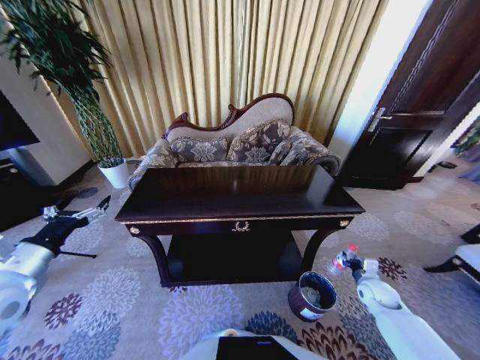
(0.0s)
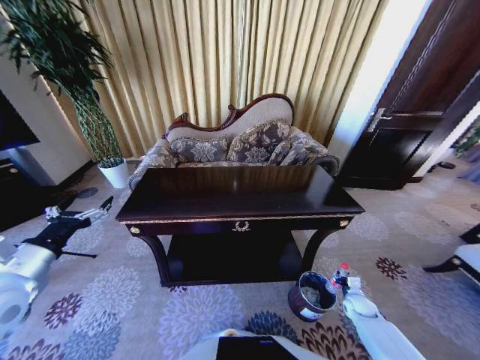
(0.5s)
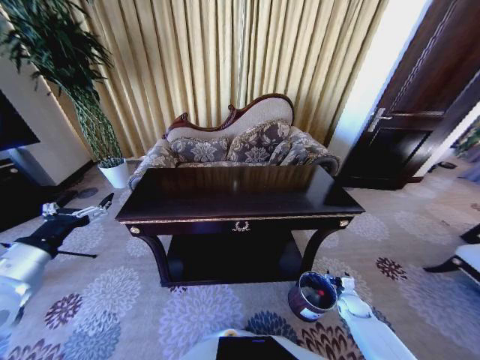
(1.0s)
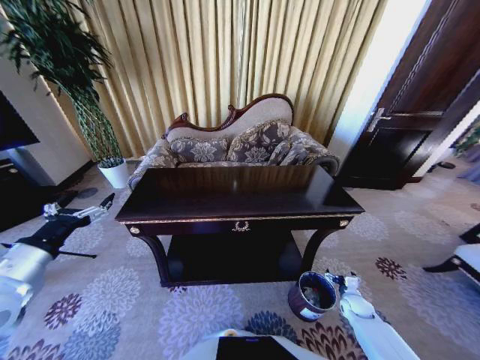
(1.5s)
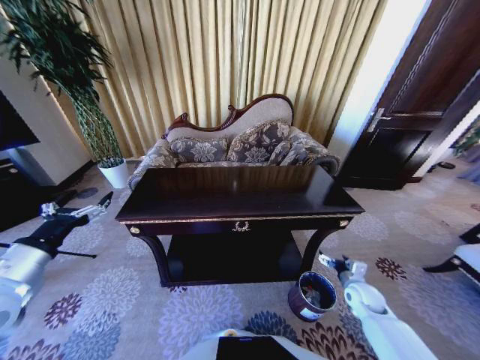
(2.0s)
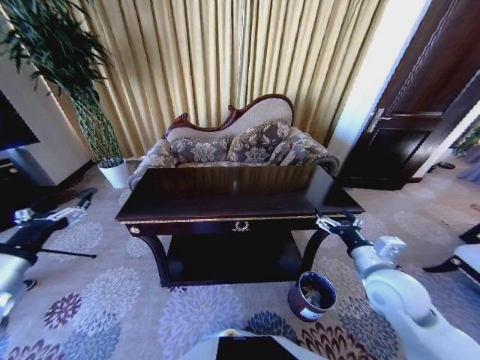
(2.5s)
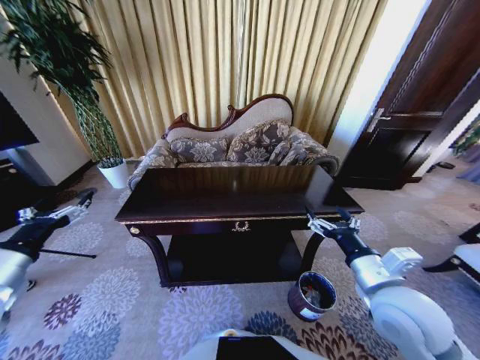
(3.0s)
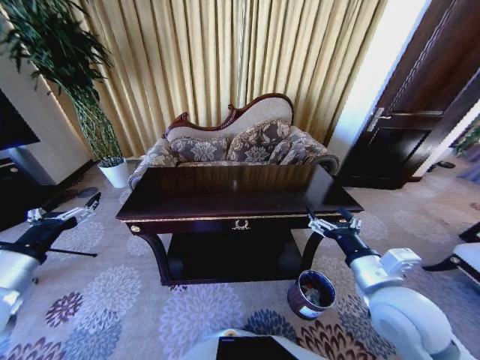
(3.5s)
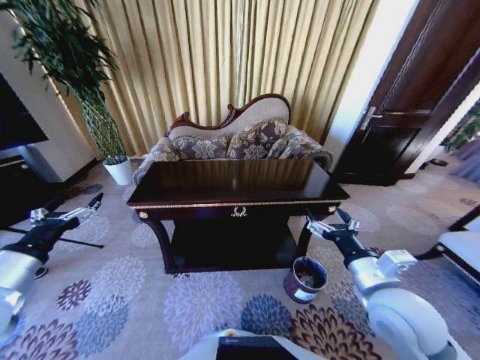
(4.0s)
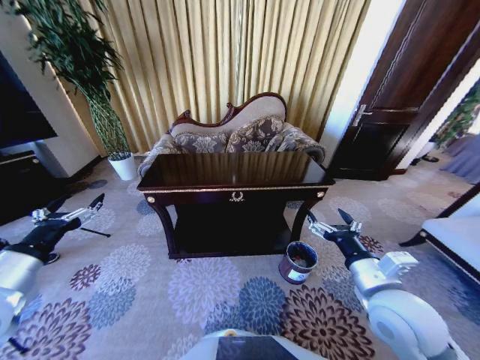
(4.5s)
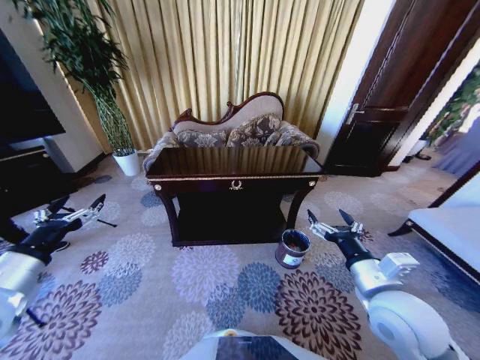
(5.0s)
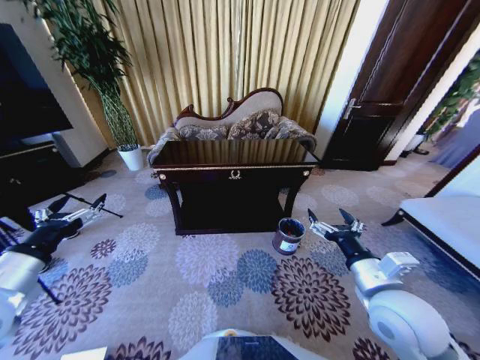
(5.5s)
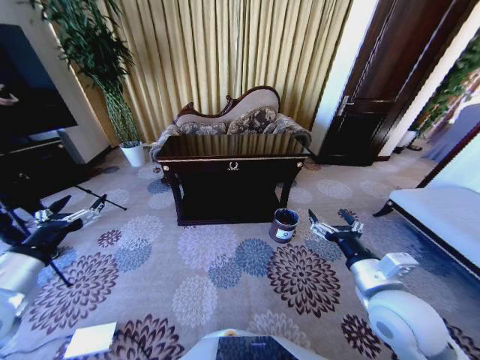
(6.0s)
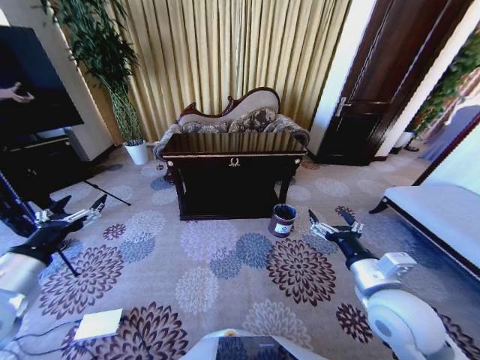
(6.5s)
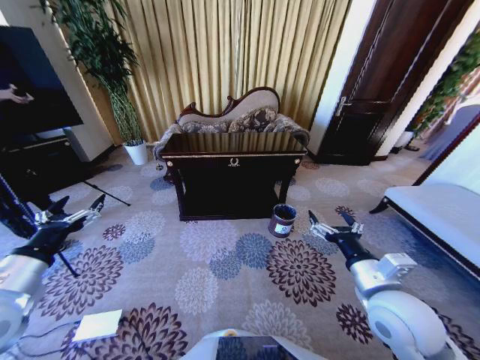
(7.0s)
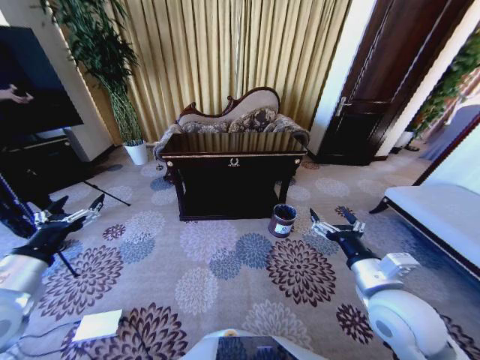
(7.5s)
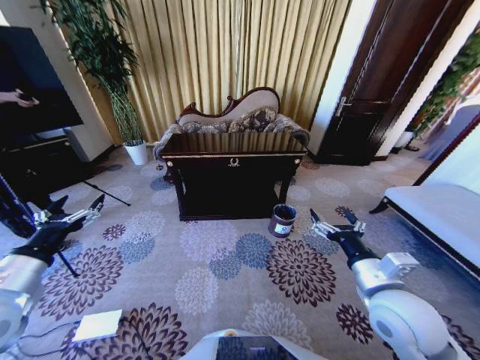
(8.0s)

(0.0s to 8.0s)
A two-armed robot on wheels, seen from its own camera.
Task of the whole recording: Move to the front of the table and place the trash on the table into the trash bin.
0.0s - 2.0s: The right gripper reaches about 10 cm downward, then returns, and opens up.
2.0s - 4.0s: The right gripper moves upward and to the left, about 30 cm.

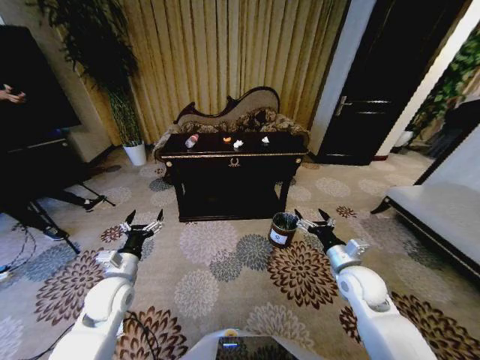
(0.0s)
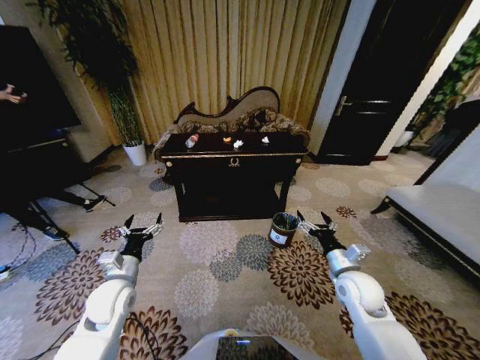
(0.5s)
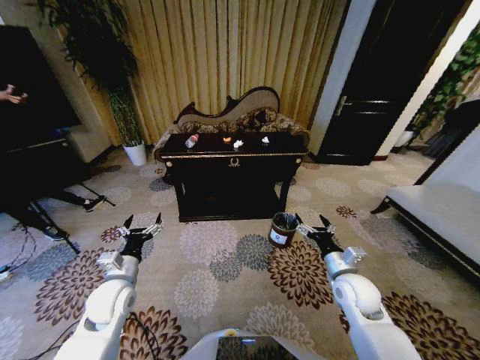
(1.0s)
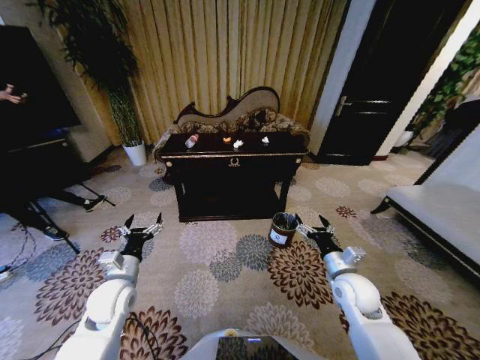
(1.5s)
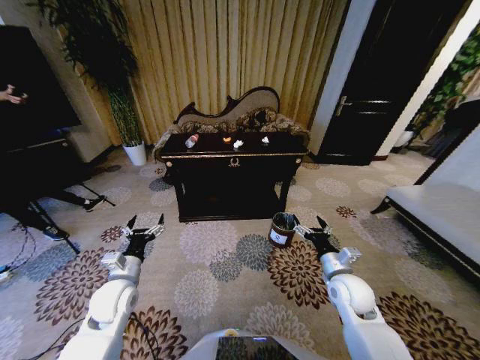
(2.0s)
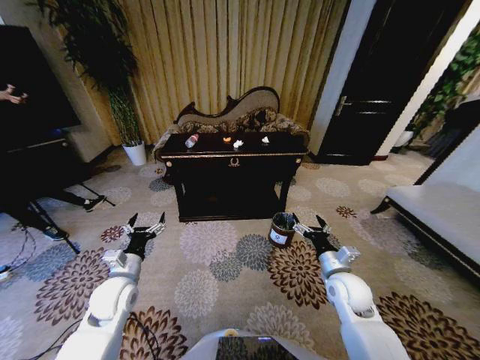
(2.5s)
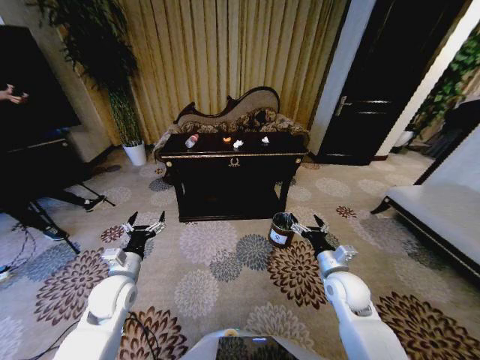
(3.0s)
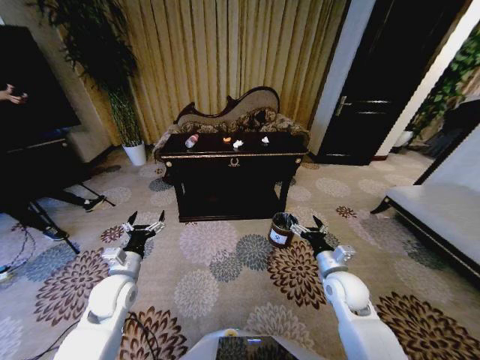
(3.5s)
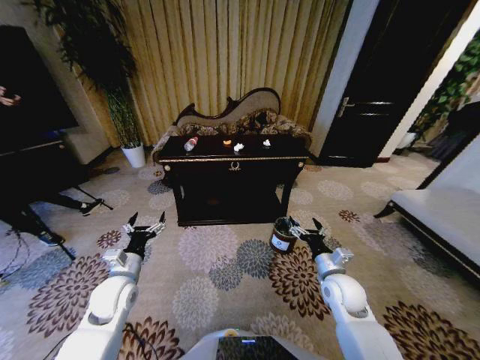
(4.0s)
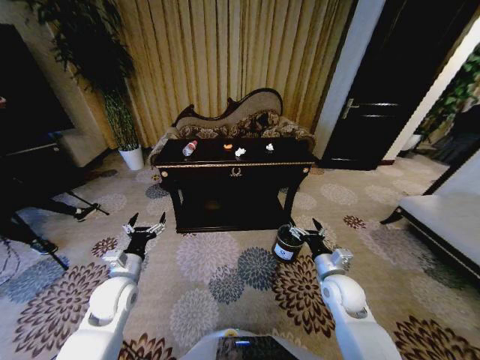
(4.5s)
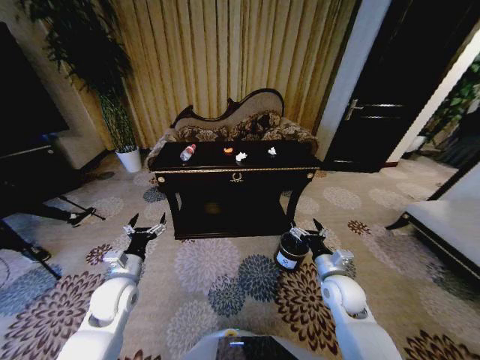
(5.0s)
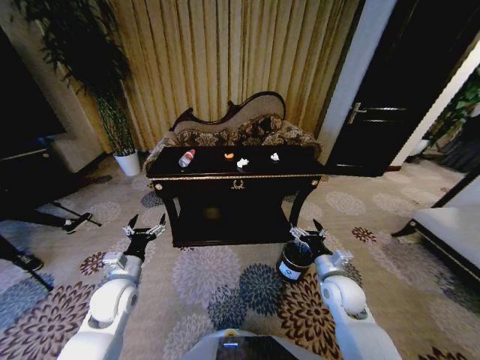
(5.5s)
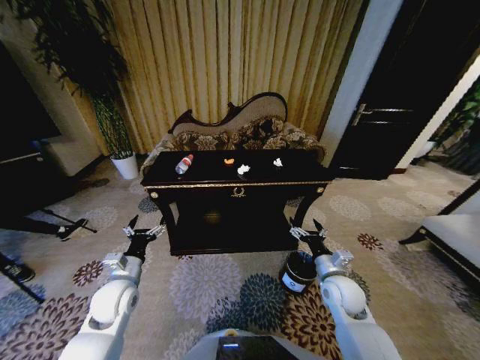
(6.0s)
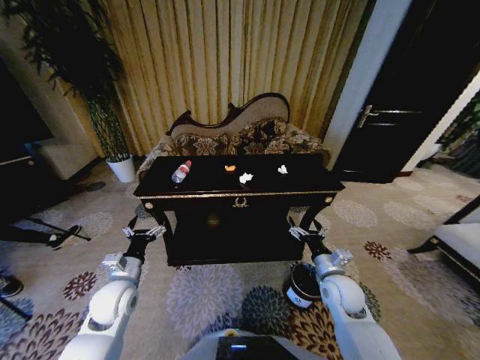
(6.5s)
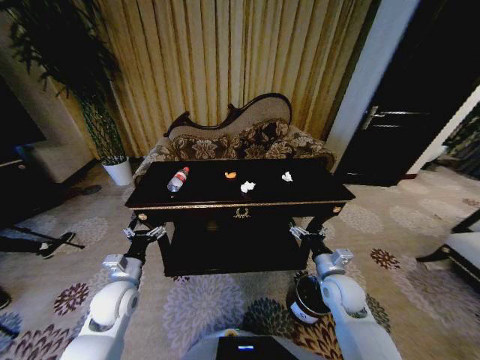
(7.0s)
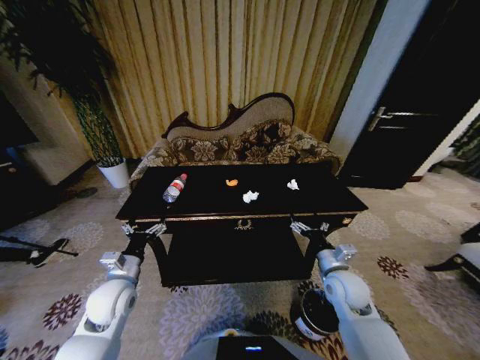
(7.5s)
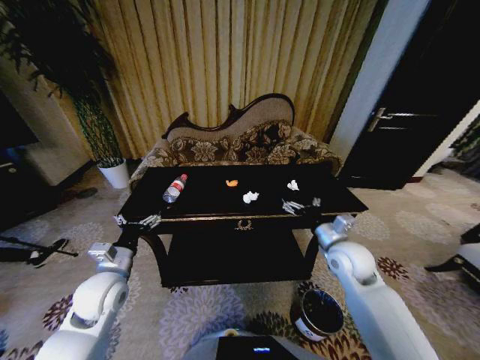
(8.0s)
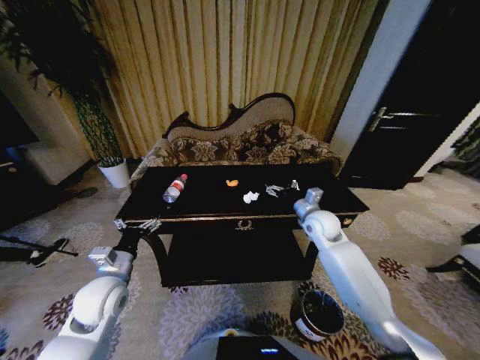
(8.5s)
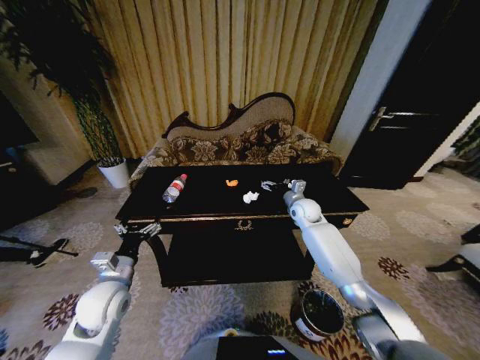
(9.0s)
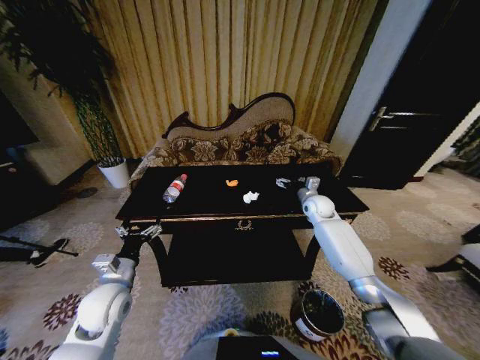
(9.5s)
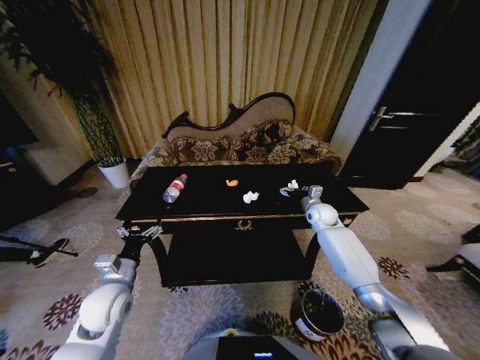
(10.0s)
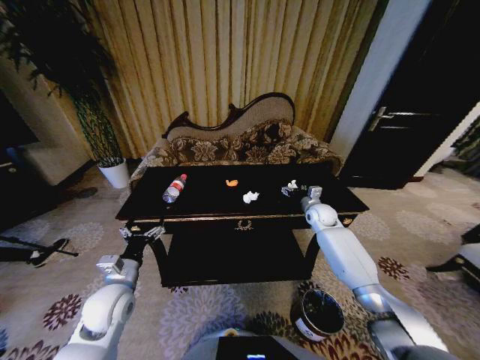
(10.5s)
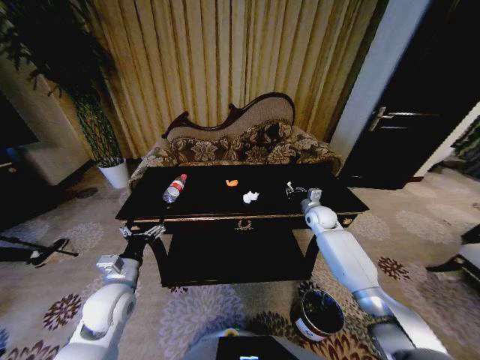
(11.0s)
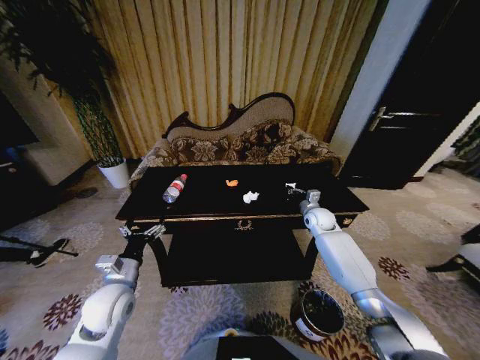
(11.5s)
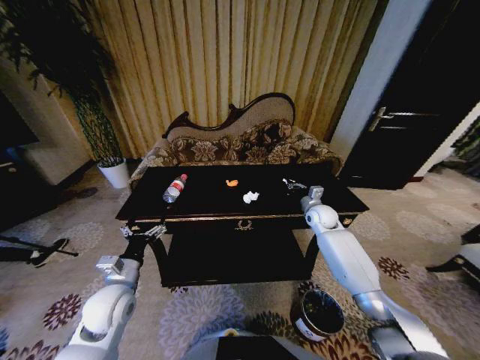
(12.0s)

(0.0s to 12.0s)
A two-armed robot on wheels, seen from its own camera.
Task of the whole recording: Move to the front of the table and place the trash on the table into the trash bin.
2.0s - 4.0s: The grippers make only small movements.
6.0s - 8.0s: The left gripper goes some 5 cm upward. The right gripper heads upward, covering approximately 10 cm.
8.0s - 10.0s: The right gripper is displaced forward by approximately 20 cm.
10.0s - 12.0s: The right gripper closes up.

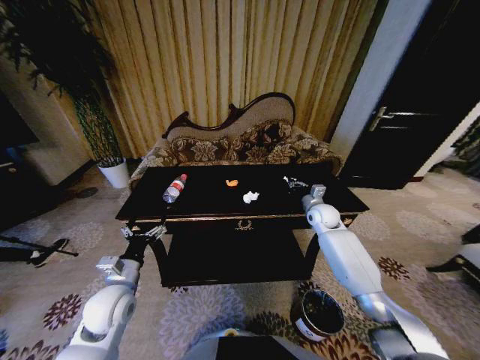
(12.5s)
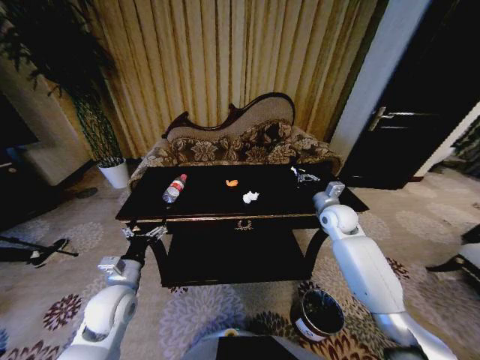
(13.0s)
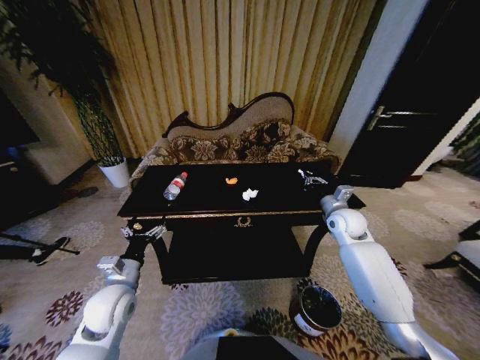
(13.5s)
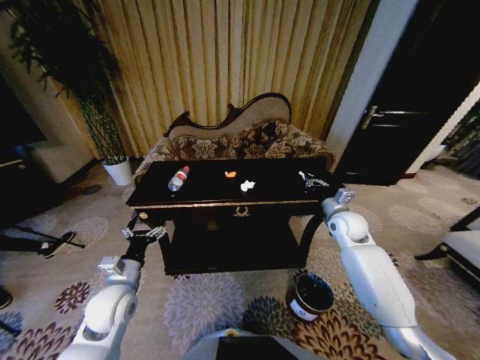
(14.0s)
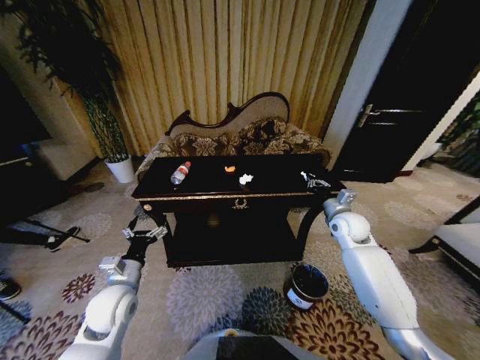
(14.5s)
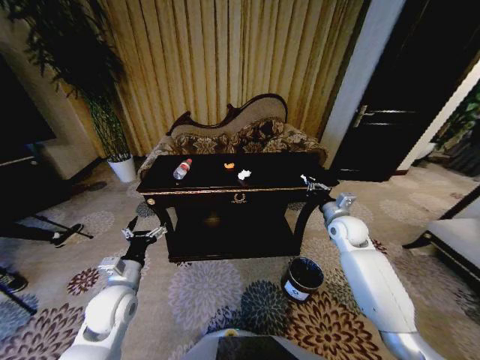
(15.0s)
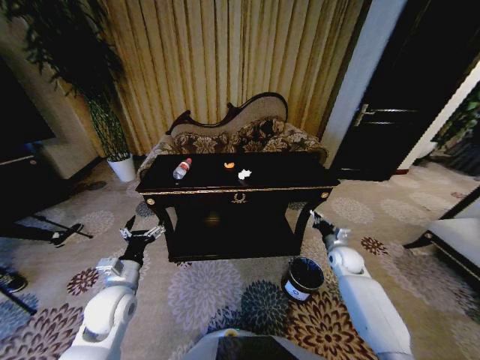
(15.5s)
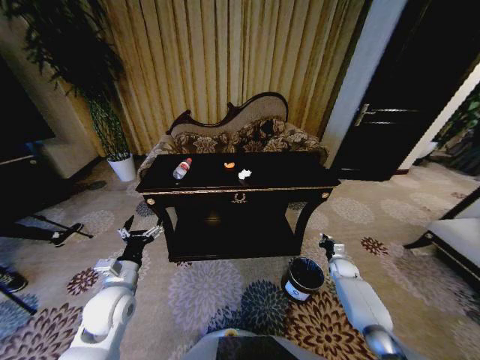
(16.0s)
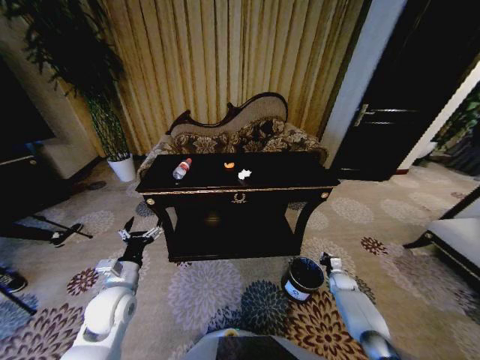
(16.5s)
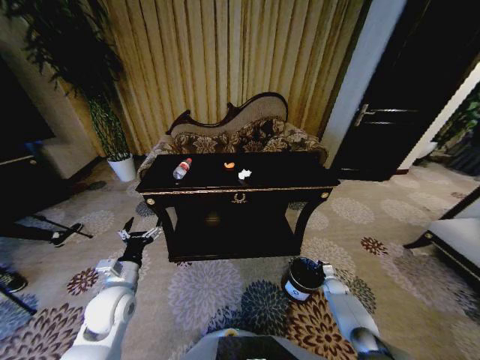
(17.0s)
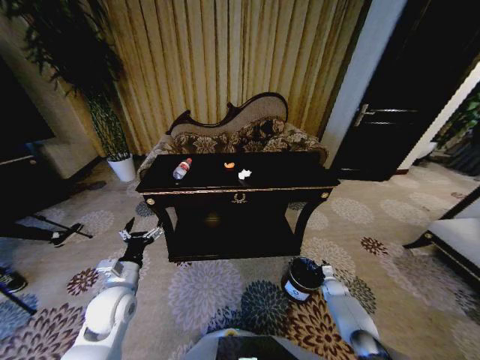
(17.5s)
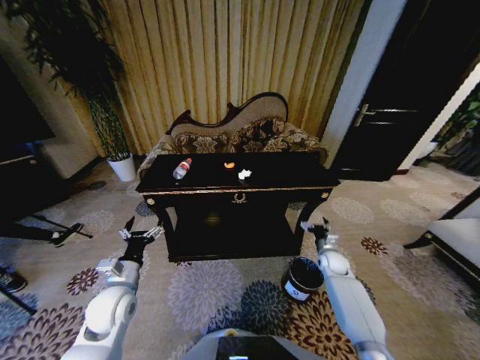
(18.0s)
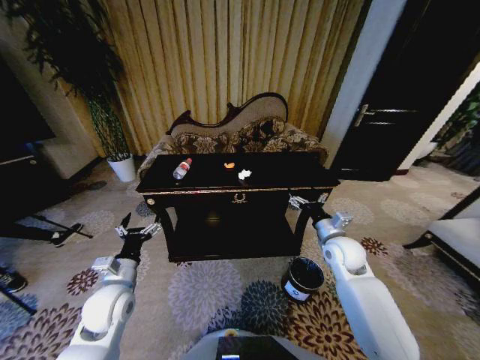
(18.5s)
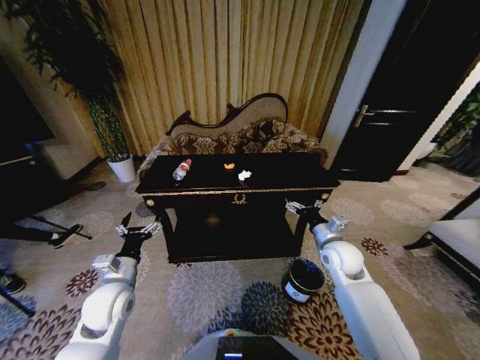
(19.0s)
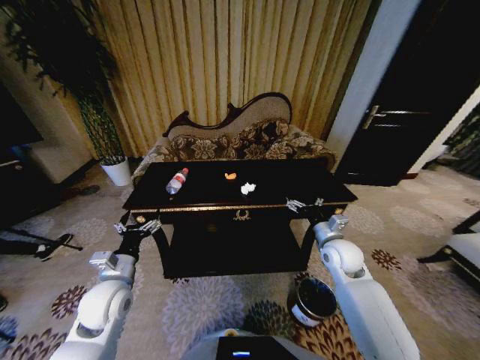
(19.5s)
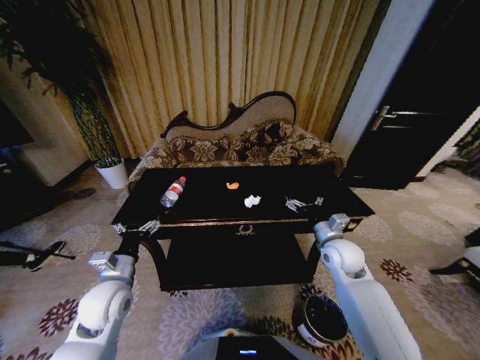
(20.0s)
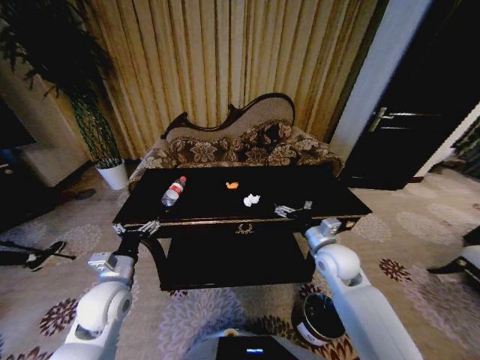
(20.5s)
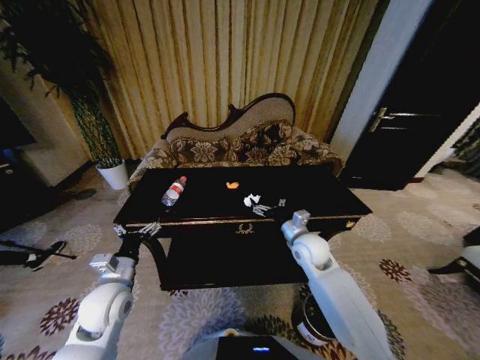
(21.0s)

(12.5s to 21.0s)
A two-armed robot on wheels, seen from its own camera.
Task of the whole recording: Move to the front of the table and place the trash on the table into the trash bin.
12.5s - 14.5s: The right gripper moves backward, approximately 5 cm.
14.5s - 16.5s: The right gripper moves downward, approximately 30 cm.
16.5s - 19.0s: The right gripper goes some 35 cm upward and to the left, and opens.
19.0s - 21.0s: The right gripper travels to the left by some 10 cm.
